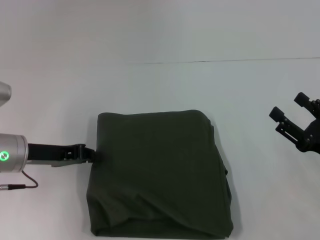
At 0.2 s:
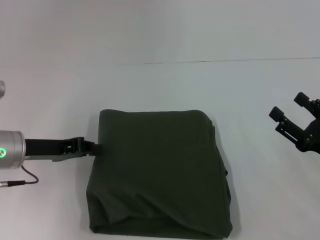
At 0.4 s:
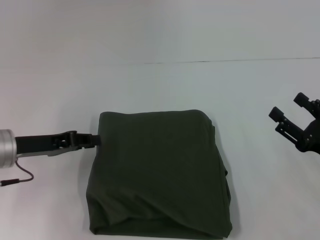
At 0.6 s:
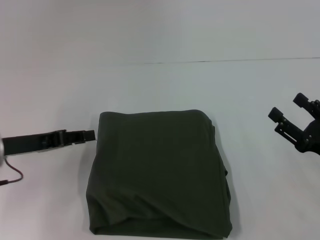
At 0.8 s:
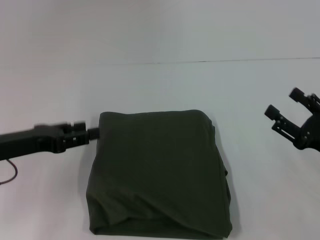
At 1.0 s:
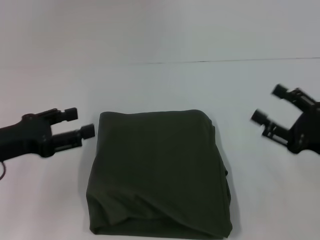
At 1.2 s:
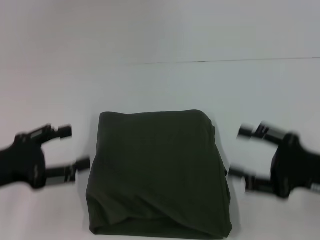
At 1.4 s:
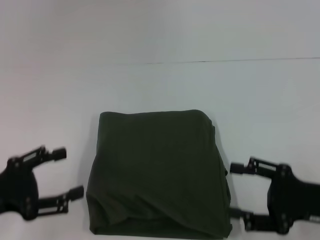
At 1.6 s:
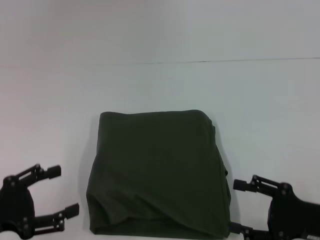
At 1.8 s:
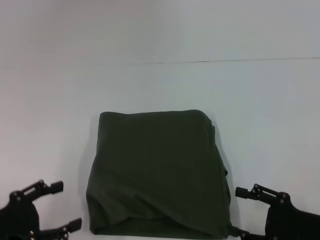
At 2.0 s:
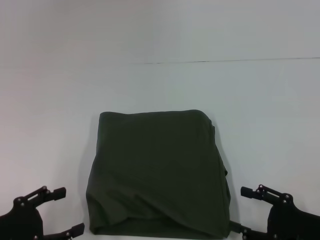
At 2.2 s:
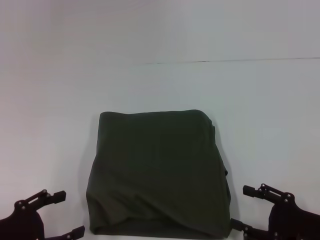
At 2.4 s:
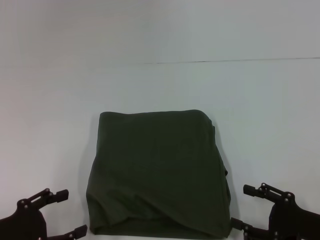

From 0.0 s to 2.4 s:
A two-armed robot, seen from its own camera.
From 0.0 s to 1.2 s: The left gripper heads backward, covering some 10 cm, and opens up.
From 1.2 s to 2.4 s: Both grippers move downward and backward, roughly 10 cm.
